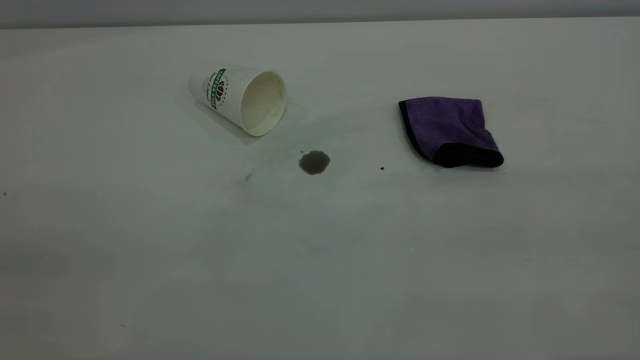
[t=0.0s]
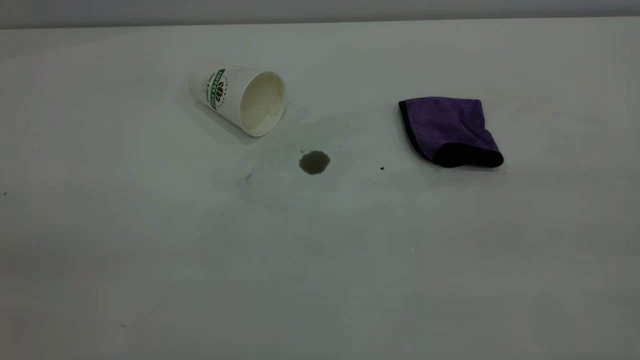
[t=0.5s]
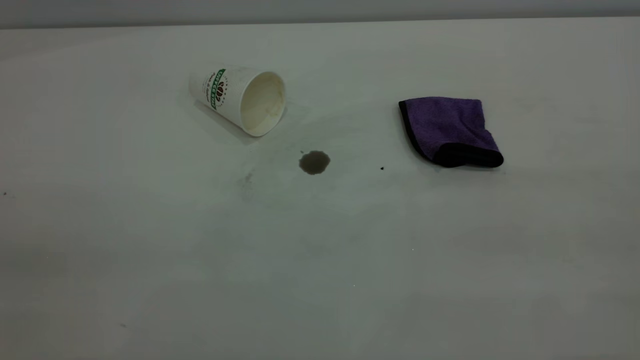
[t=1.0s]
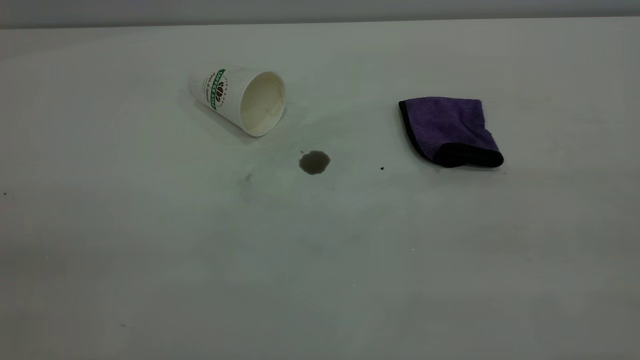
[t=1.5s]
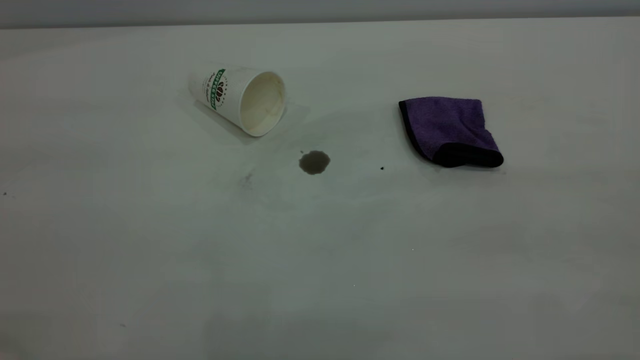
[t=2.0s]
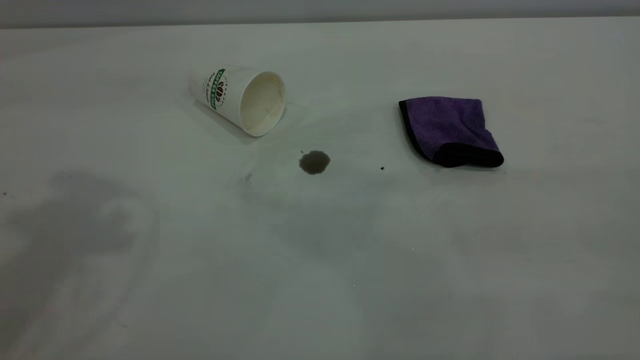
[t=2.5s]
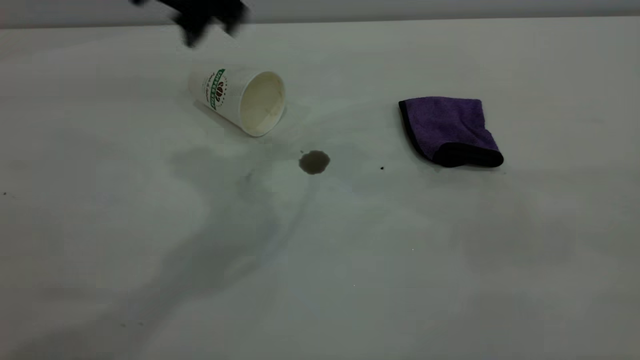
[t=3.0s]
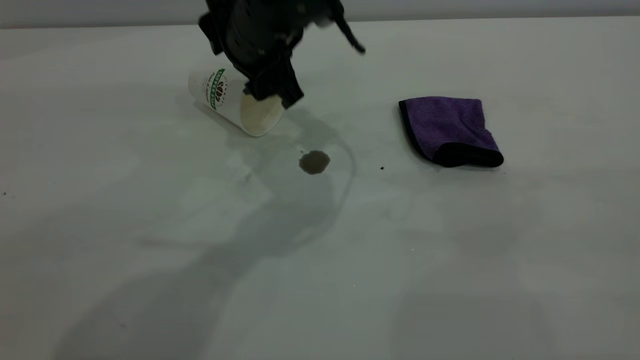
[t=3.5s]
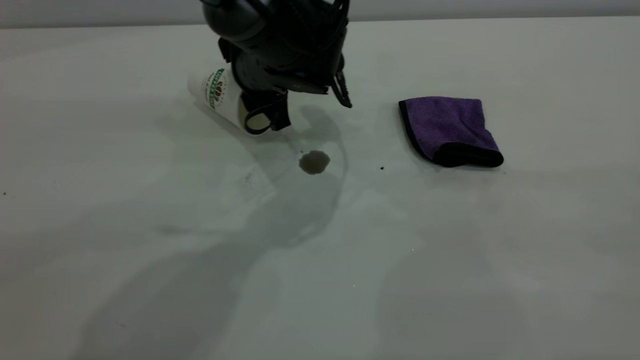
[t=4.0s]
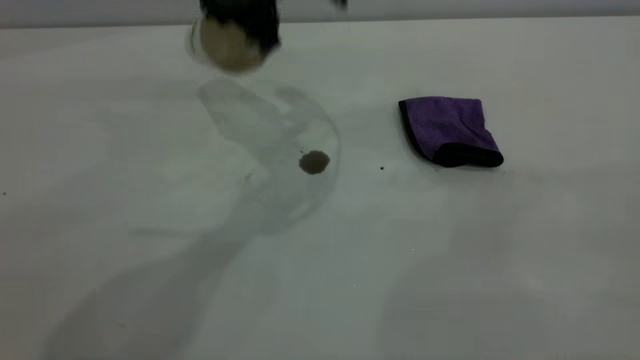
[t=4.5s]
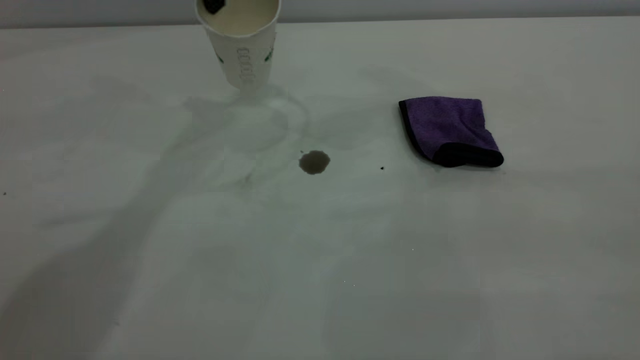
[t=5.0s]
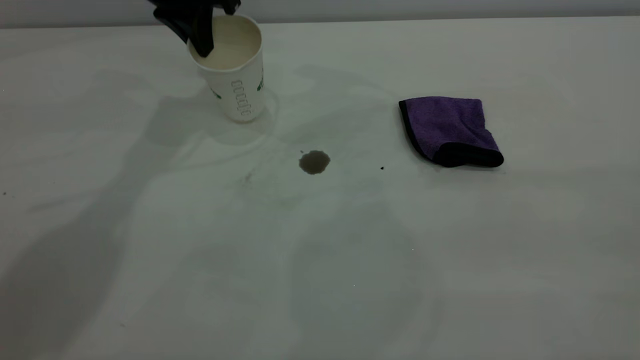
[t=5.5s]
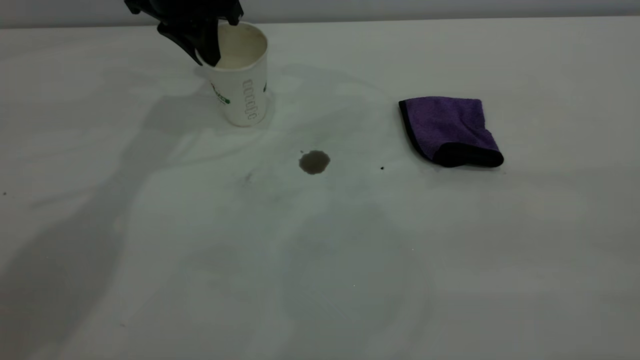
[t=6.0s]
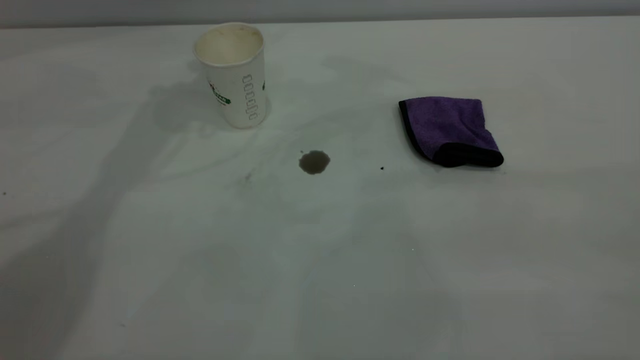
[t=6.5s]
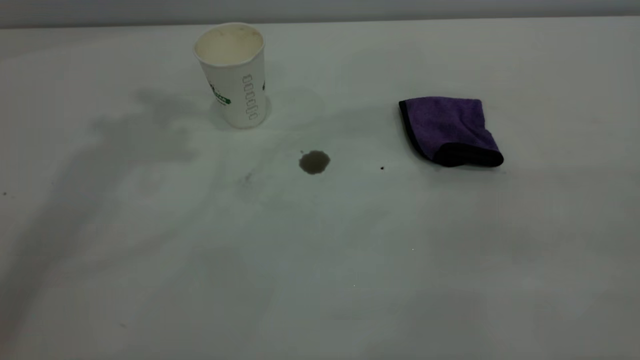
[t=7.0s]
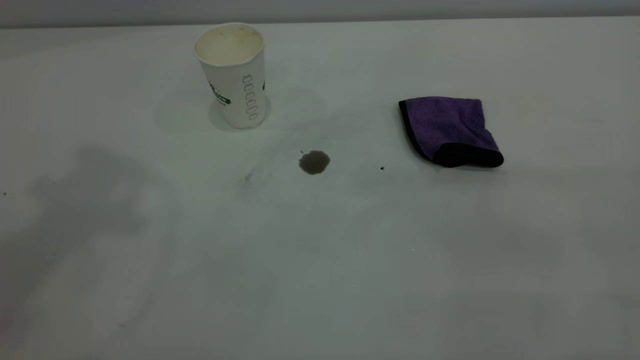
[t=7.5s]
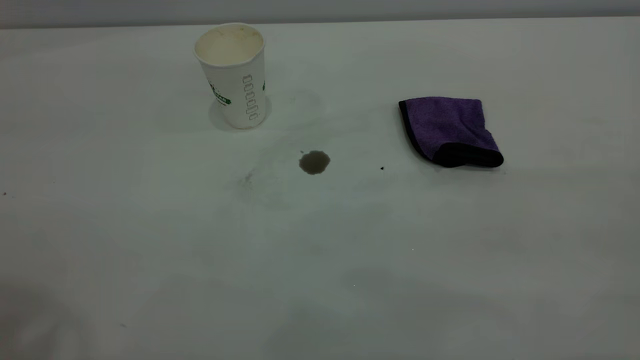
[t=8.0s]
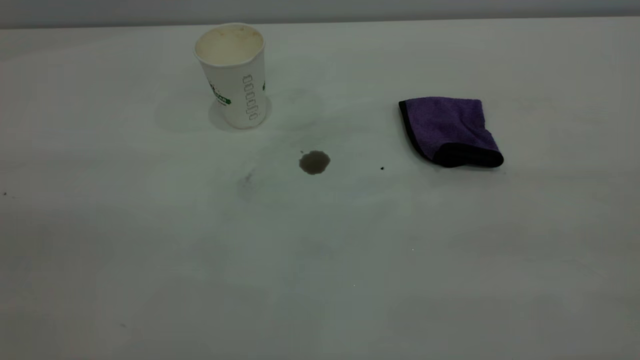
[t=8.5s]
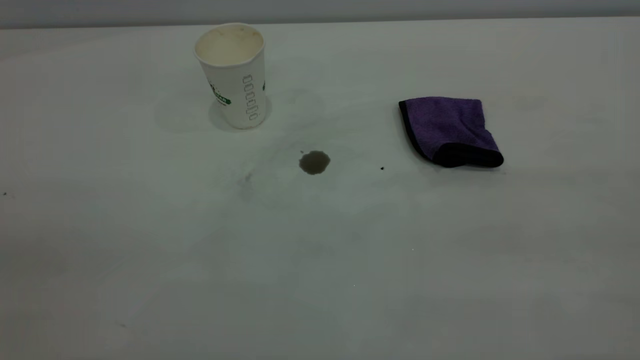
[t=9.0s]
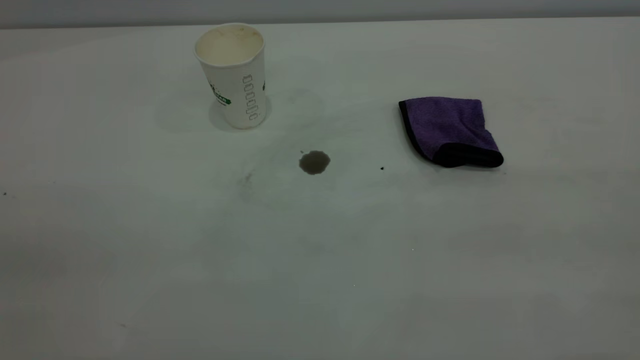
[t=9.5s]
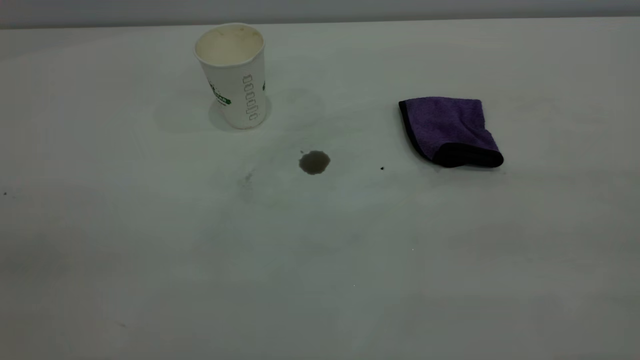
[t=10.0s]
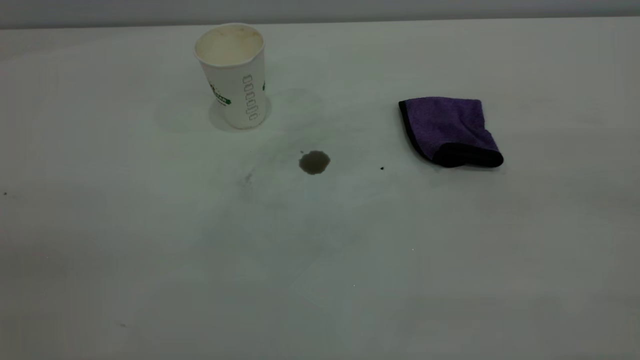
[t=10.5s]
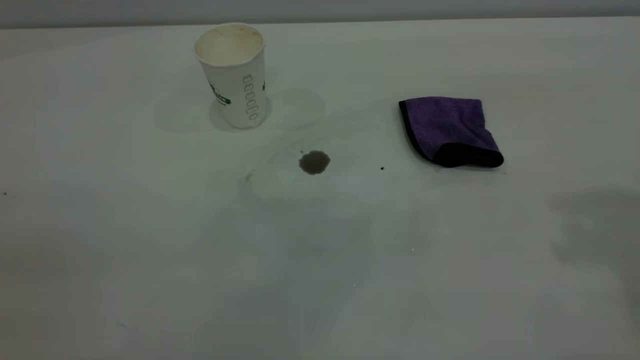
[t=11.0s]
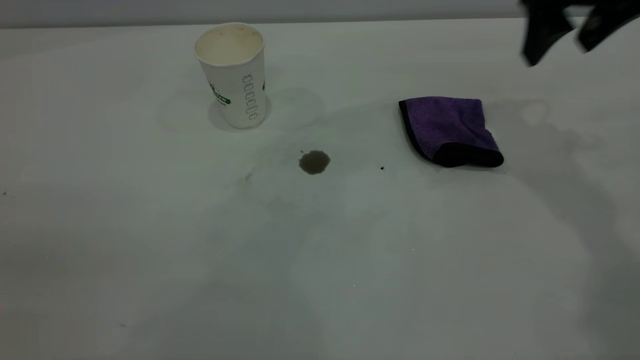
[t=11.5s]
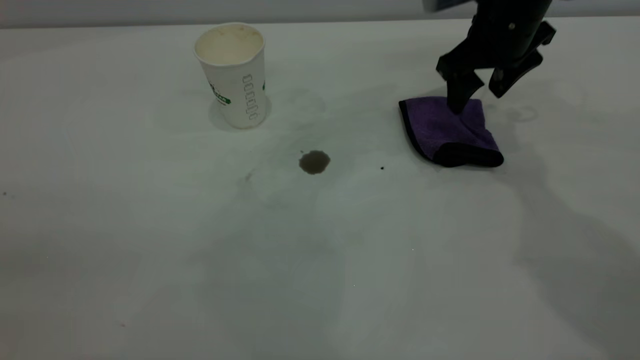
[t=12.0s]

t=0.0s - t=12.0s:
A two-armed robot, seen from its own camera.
Task of the whole recording: the left gripper pick up the fallen cup and place it upright, the right gripper grasp the purple rag and wipe the coffee stain on the table, the right gripper put the purple rag back in its original position.
Step, t=0.0s - t=6.0s: Stand the paper cup upright.
t=2.0s - t=4.0s: The left gripper travels downward, forward and to the right by approximately 50 cm.
t=4.0s - t=6.0s: The left gripper moves to the left, upward and forward, some 15 cm, and closes.
t=6.0s - t=8.0s: The left gripper heads backward and upward, covering some 50 cm, and opens its fingers.
t=10.0s - t=12.0s: The right gripper moves forward and downward, about 50 cm, and opens.

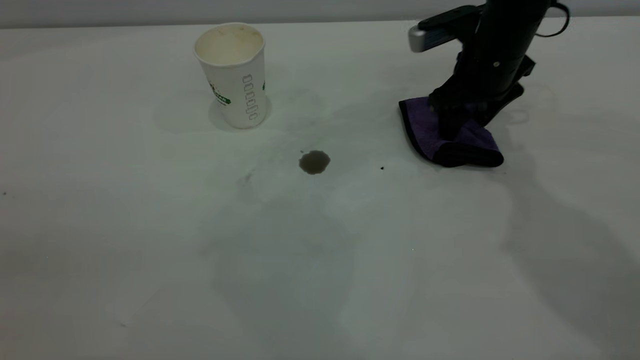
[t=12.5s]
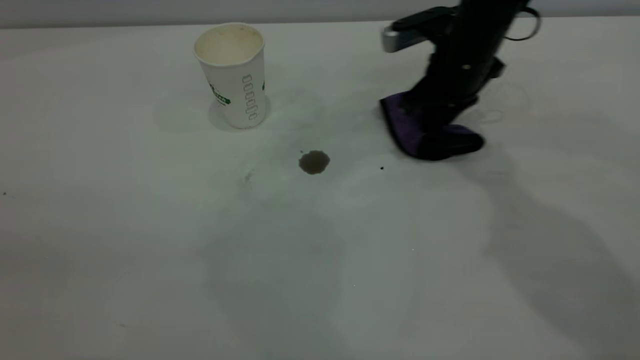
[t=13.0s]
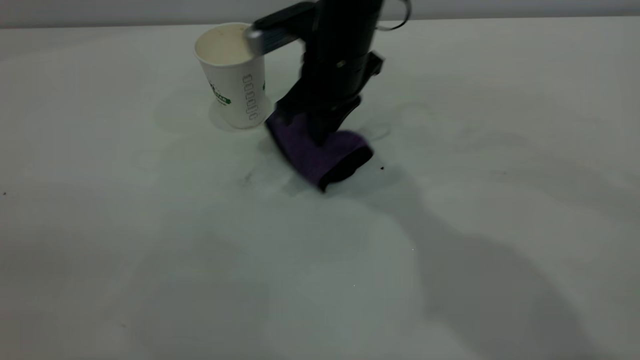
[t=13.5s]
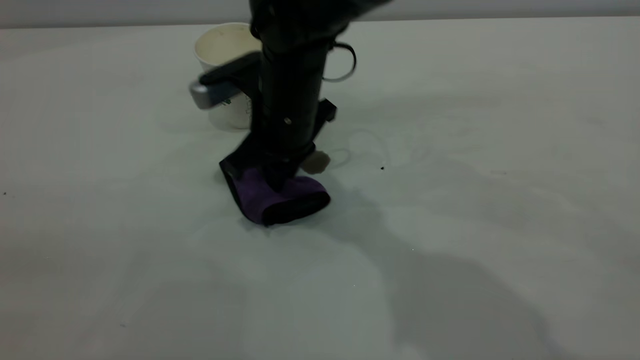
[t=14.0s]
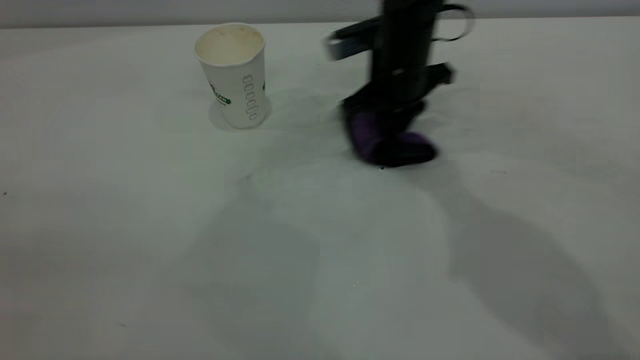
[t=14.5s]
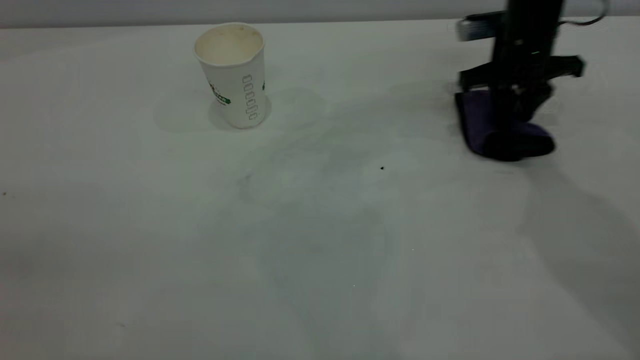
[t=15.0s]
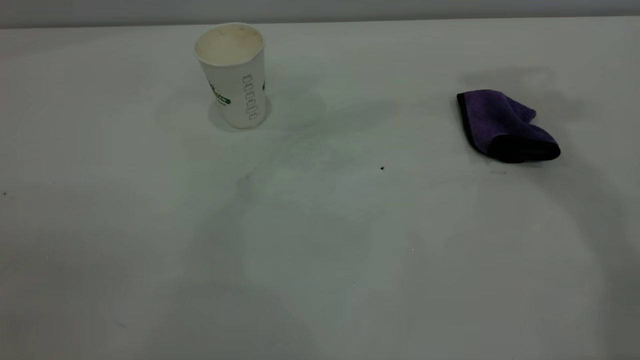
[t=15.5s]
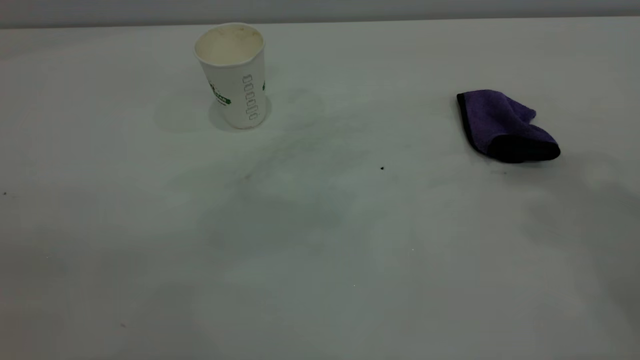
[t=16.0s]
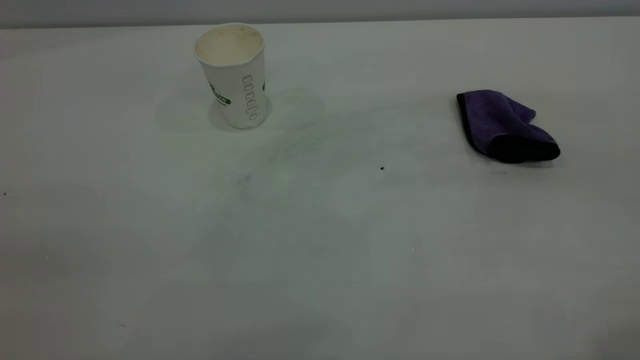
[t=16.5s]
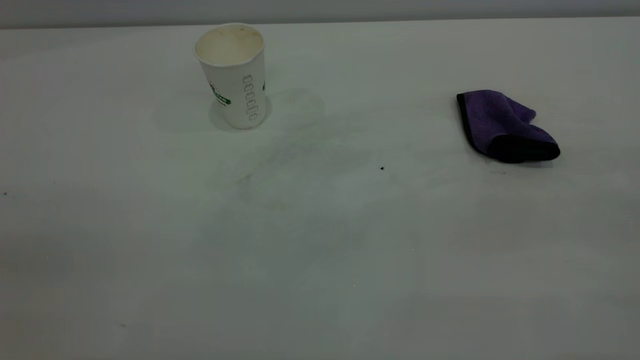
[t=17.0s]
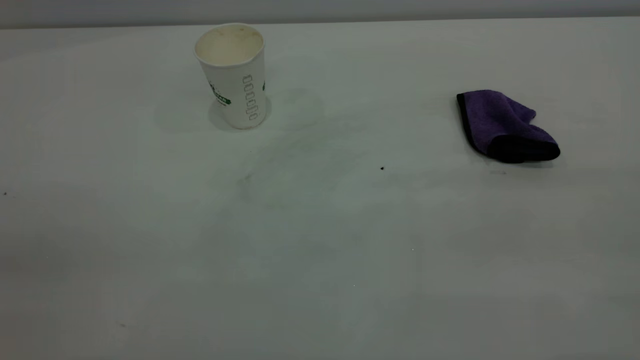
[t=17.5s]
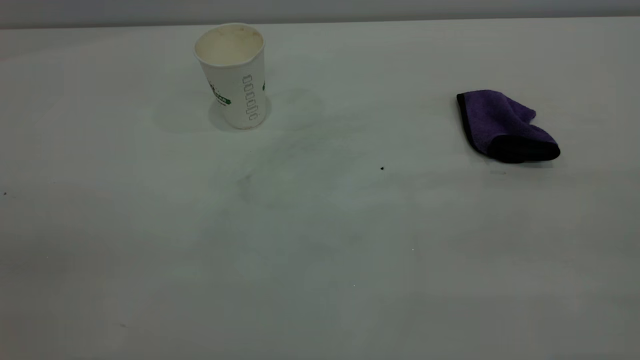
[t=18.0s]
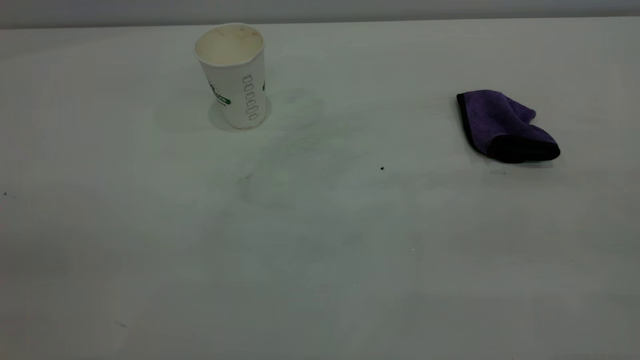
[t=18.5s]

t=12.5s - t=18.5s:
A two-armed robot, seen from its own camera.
Task of the whole recording: the left gripper pick up the fallen cup and place it upright, the right gripper grasp the purple rag and wipe the coffee stain on the table, the right gripper put the purple rag back in its original position.
Step, t=12.5s - t=15.0s: Wipe the stains off the table with a rag.
t=12.5s - t=14.5s: The right gripper shifts some 10 cm to the left, and closes.
t=14.5s - t=16.5s: The right gripper moves backward, upward and to the right, some 50 cm, and opens up.
